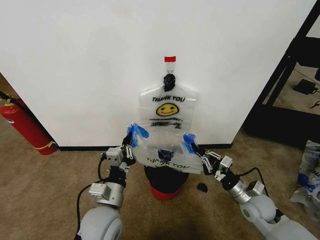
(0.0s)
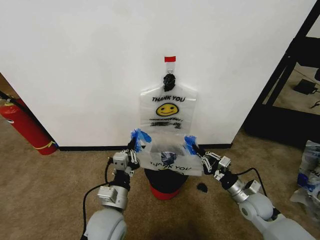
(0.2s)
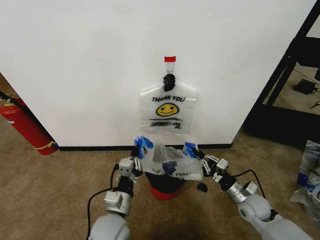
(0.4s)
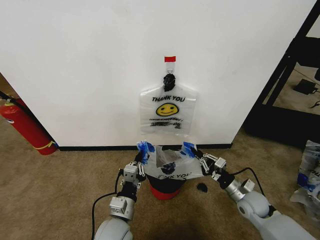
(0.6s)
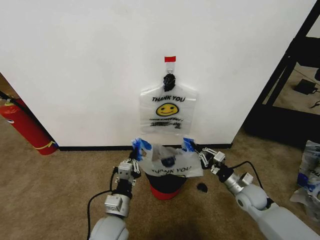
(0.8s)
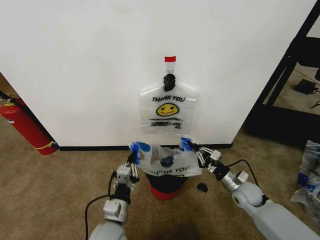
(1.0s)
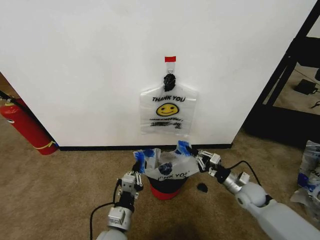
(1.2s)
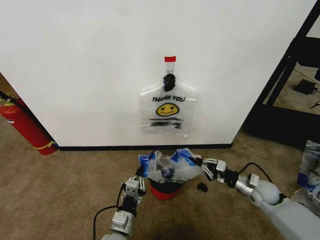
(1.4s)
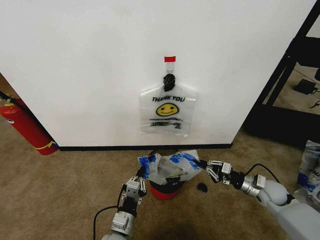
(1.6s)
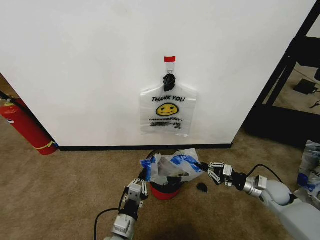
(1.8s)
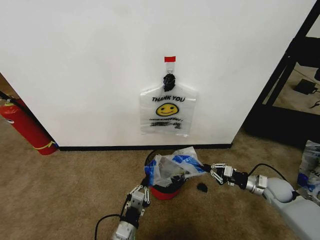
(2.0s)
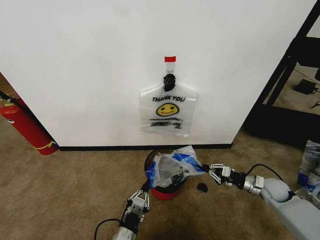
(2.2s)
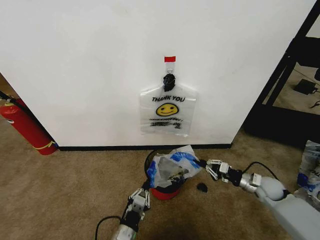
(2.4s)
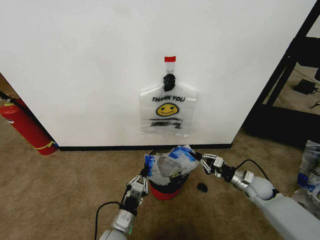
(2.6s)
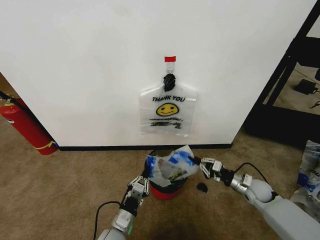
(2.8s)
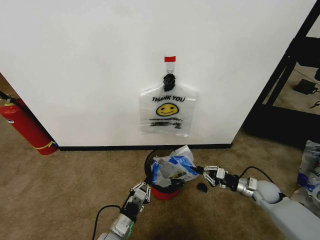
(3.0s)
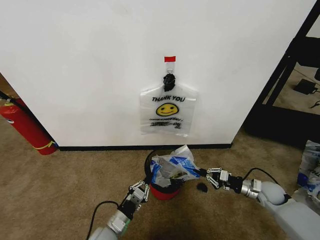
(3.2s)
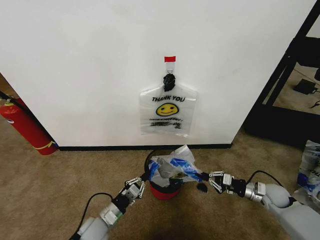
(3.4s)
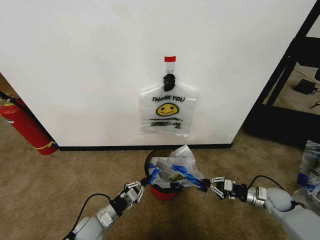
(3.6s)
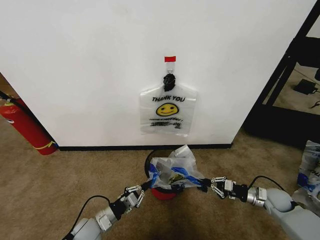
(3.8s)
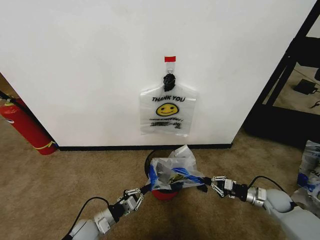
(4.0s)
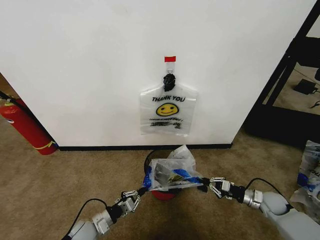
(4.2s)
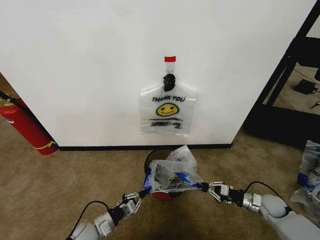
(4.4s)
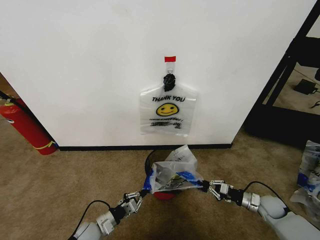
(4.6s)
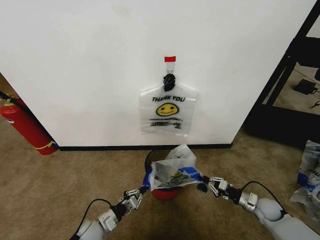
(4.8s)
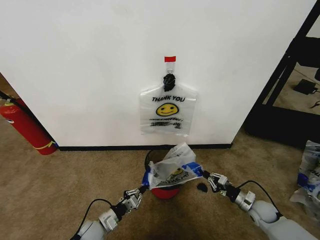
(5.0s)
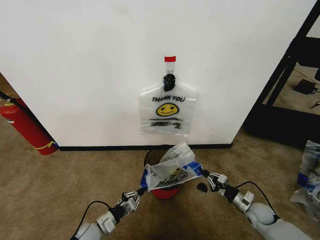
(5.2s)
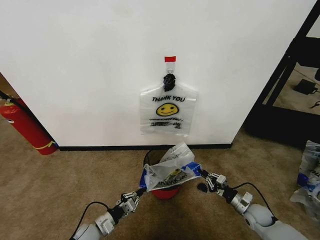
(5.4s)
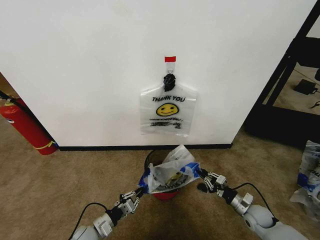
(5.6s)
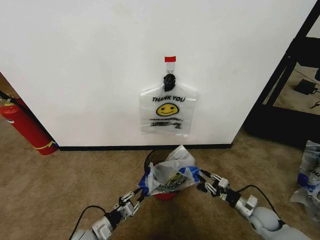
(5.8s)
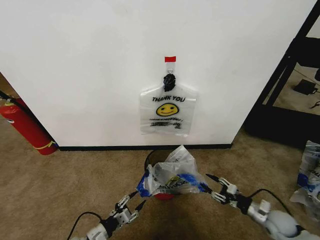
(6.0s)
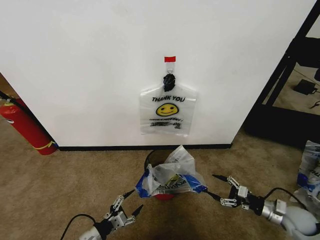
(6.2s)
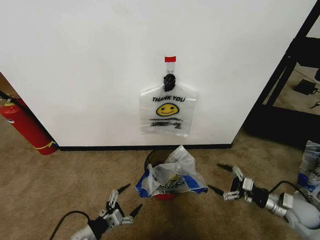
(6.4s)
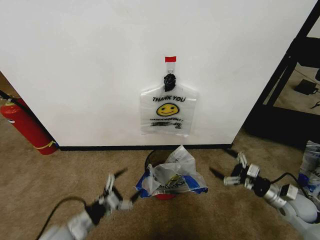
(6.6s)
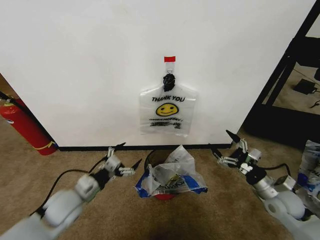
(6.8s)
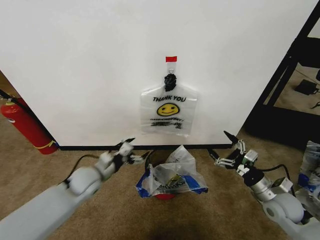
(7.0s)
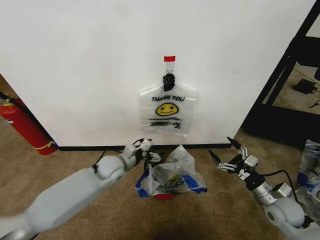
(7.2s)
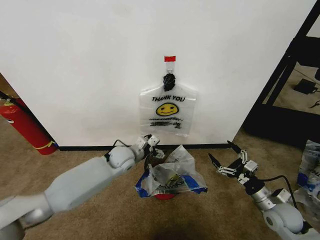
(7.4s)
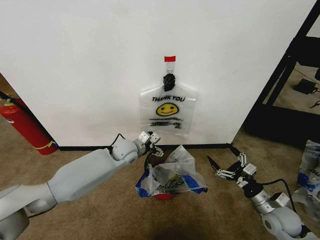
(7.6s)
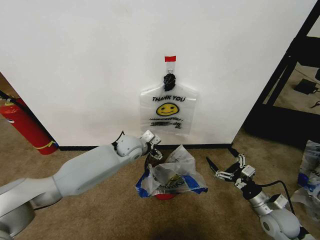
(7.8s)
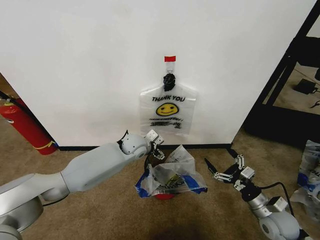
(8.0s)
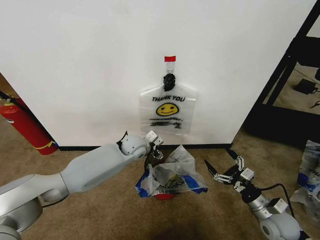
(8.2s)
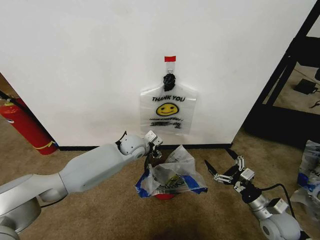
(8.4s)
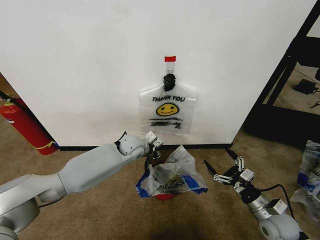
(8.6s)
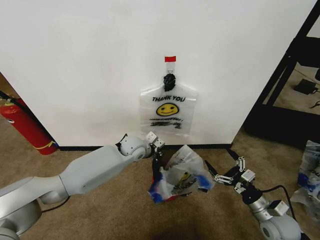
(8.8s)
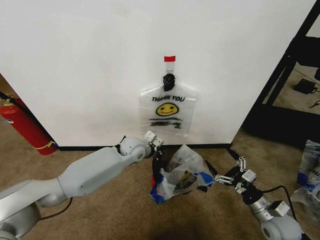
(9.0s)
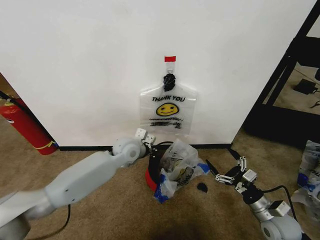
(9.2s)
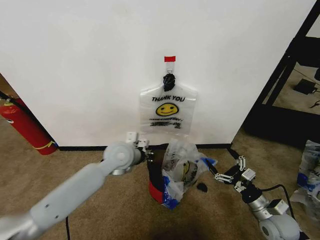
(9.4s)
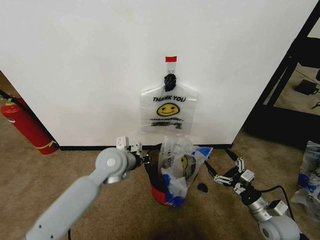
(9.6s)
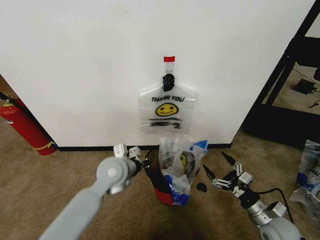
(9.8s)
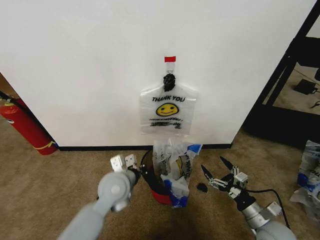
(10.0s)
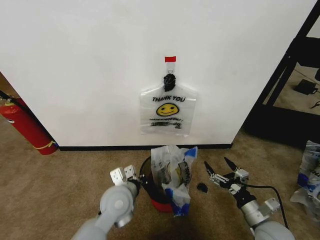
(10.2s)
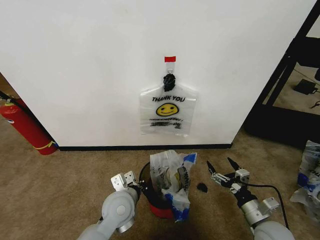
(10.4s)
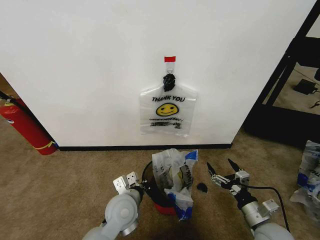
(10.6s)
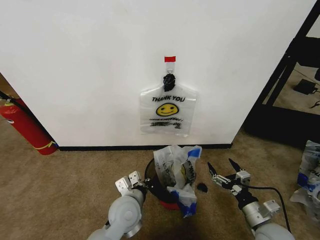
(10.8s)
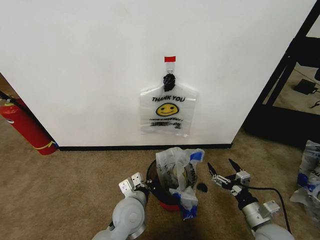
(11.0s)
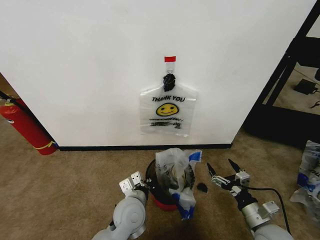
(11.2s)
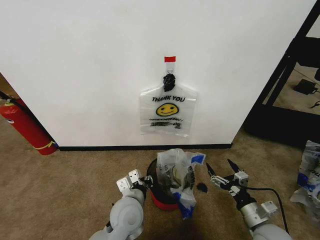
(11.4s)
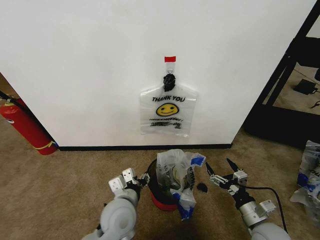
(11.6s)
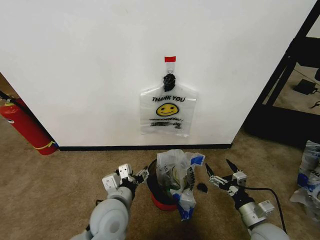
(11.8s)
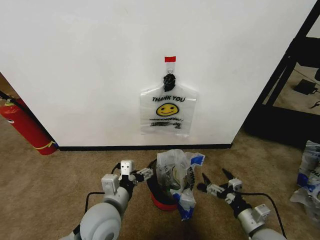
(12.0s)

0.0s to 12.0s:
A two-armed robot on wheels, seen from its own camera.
Task of the whole recording: Pick up the garbage bag from the wall and place it over the trash bin.
0.0s to 1.6s: The left gripper travels downward by some 10 cm, while the right gripper heads to the right and forward, covering approximately 10 cm.
1.6s to 3.0s: The left gripper shifts by approximately 5 cm.
3.0s to 4.4s: The right gripper ends up roughly 5 cm from where it was. Meanwhile the left gripper travels to the left by roughly 10 cm.
4.4s to 6.0s: The right gripper is displaced backward by about 5 cm, and opens. Meanwhile the left gripper opens up.
6.0s to 7.6s: The left gripper travels forward, upward and to the right by roughly 35 cm, and opens, while the right gripper travels upward by approximately 10 cm, and opens its fingers.
7.6s to 9.0s: The left gripper closes.
9.0s to 10.4s: The left gripper moves backward, some 20 cm, while the right gripper ends up approximately 5 cm from where it was.
10.4s to 12.0s: The left gripper moves backward, some 5 cm, and opens.

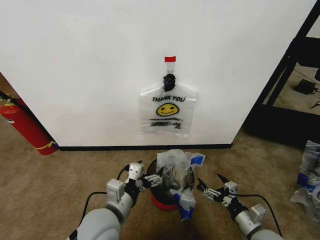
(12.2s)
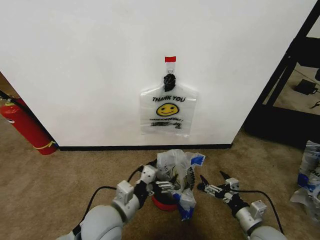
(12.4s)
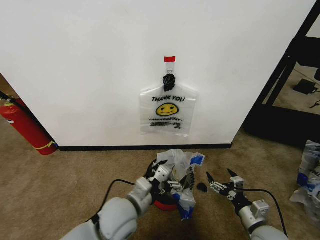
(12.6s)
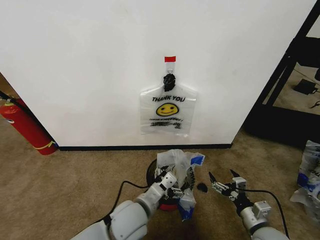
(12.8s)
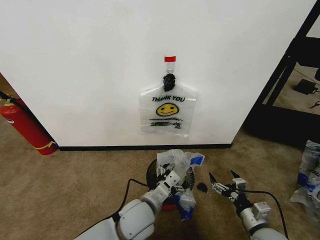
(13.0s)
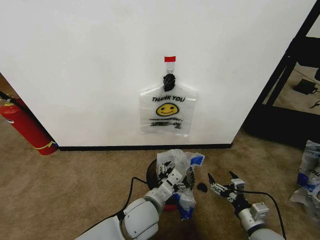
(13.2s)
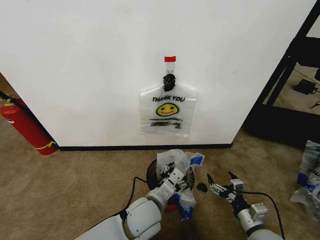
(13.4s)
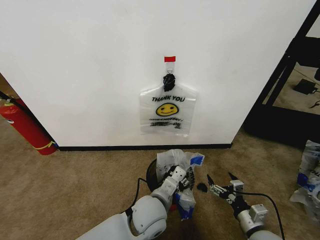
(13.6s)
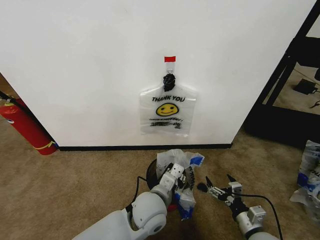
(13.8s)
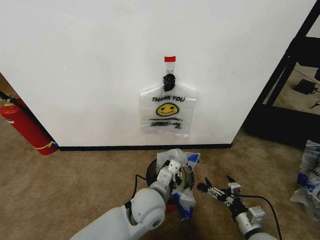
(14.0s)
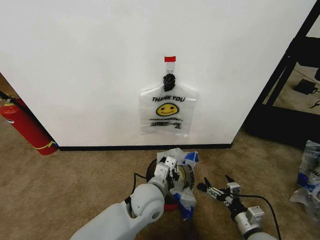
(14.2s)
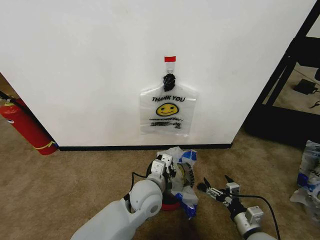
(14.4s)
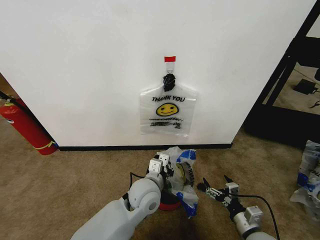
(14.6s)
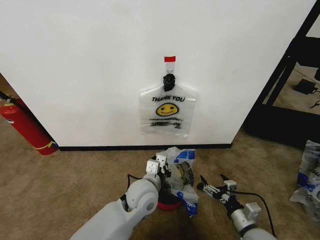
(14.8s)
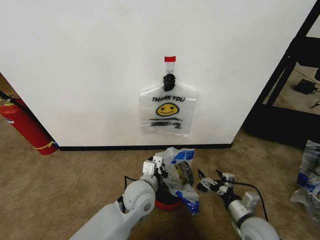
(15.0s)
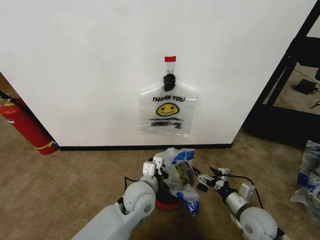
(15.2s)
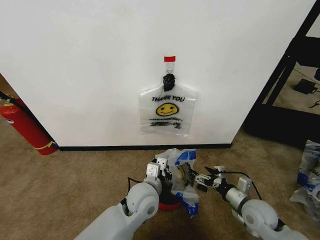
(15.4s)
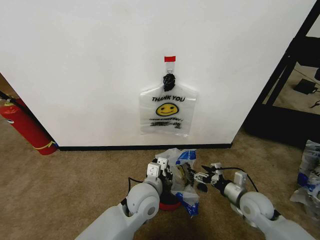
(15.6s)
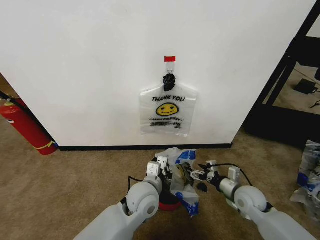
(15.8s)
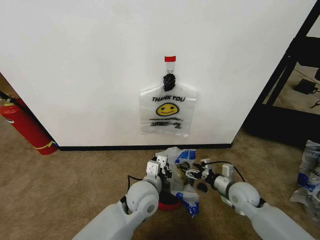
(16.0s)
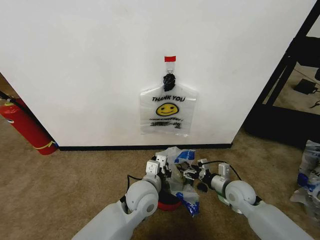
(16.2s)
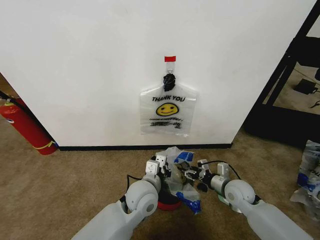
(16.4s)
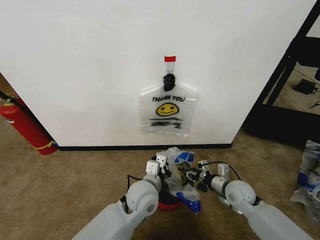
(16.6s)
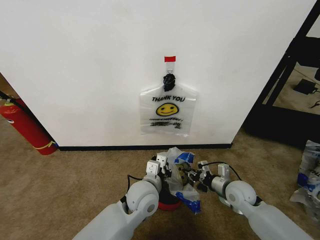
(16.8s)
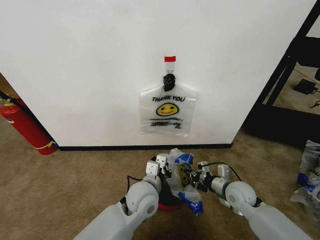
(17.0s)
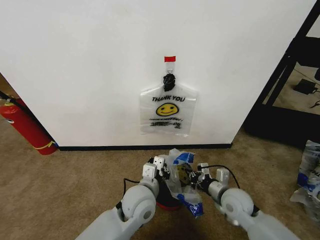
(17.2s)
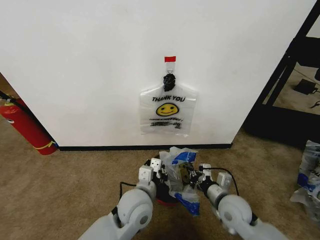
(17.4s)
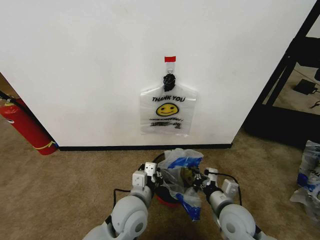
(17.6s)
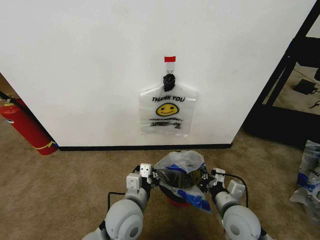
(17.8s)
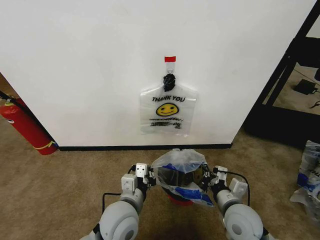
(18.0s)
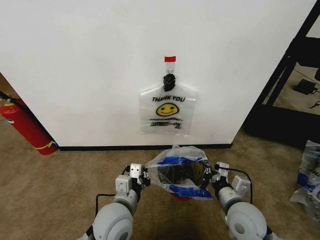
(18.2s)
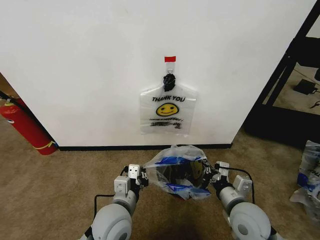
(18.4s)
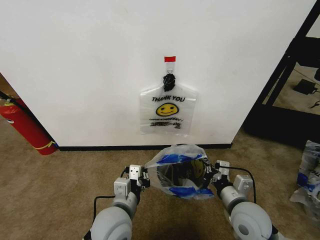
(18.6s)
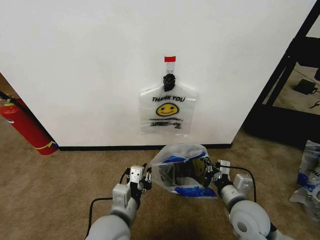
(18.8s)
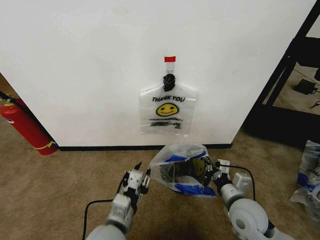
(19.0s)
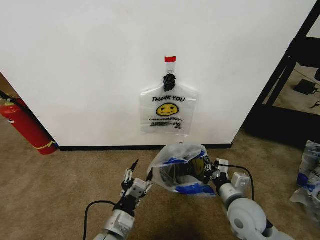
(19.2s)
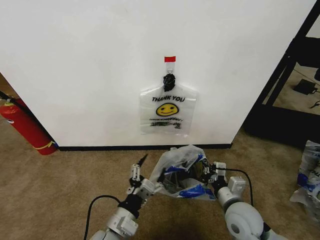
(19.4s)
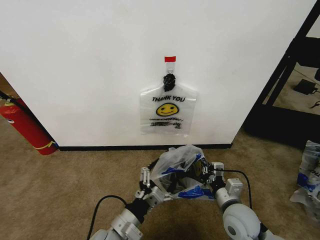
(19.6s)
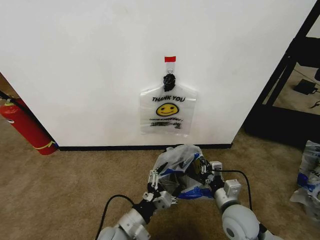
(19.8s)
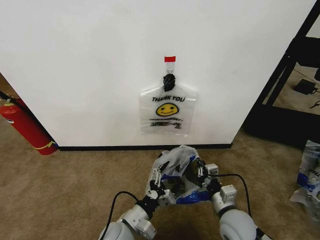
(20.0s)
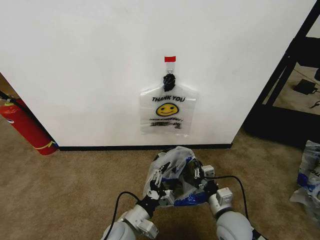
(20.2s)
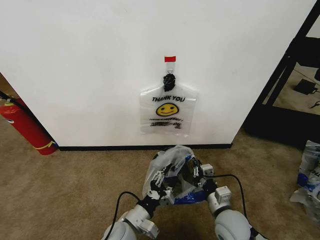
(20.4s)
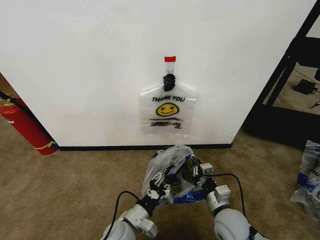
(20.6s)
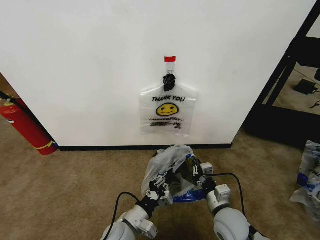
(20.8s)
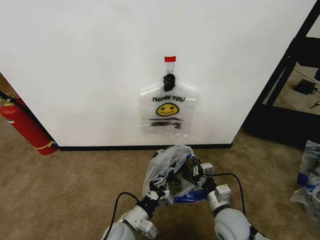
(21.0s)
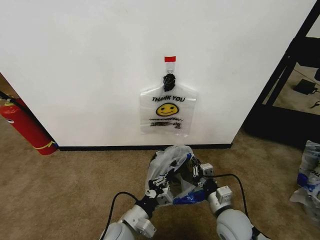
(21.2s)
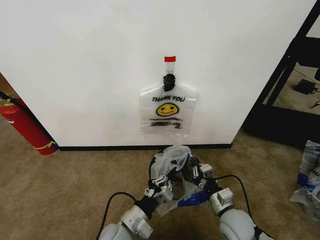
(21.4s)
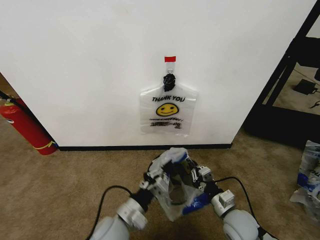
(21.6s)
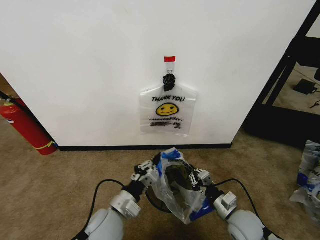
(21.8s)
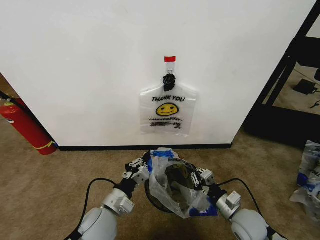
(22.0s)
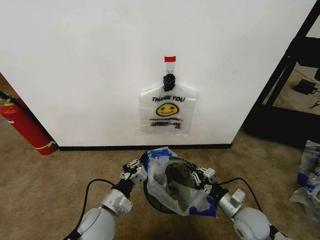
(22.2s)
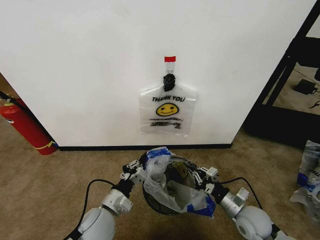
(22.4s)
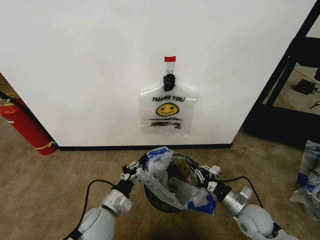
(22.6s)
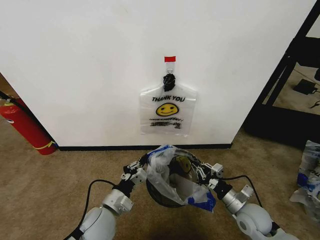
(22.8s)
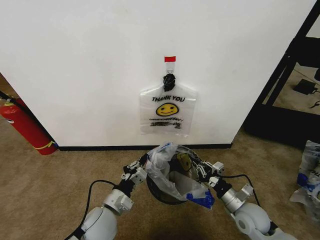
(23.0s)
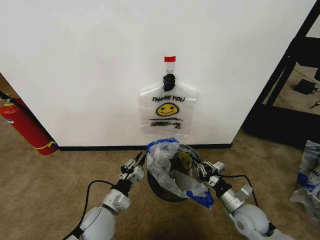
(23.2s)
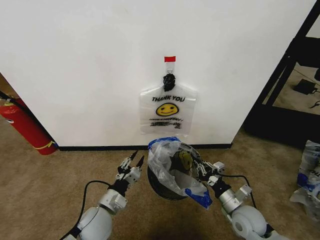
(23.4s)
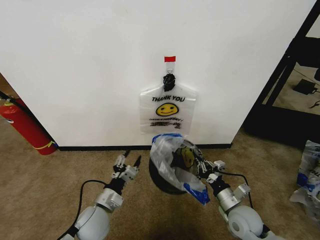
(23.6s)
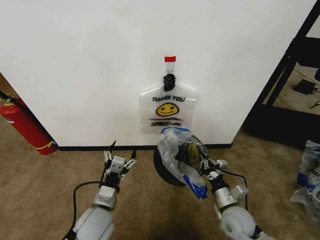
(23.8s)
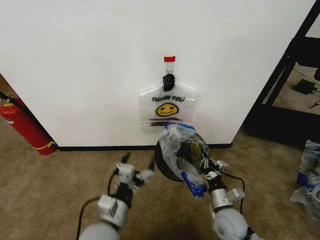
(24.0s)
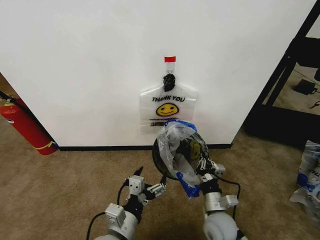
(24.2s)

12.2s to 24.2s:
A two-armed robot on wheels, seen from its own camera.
Task of the whole recording: Pick up the garbage bag from the wall and place it over the trash bin.
12.2s to 13.8s: The left gripper travels to the right and forward by approximately 15 cm, and closes.
13.8s to 15.2s: The right gripper shifts approximately 5 cm forward.
15.2s to 16.6s: The right gripper goes approximately 10 cm forward, and closes up.
16.6s to 18.2s: The left gripper heads backward and to the left, covering approximately 10 cm, while the right gripper shifts about 15 cm backward, upward and to the left, and closes up.
18.2s to 19.8s: The left gripper heads downward, covering approximately 5 cm, and opens.
19.8s to 21.2s: The left gripper closes up.
21.2s to 22.6s: The right gripper is displaced to the right by about 5 cm, while the left gripper heads to the left, covering approximately 5 cm.
22.6s to 24.2s: The left gripper opens.
